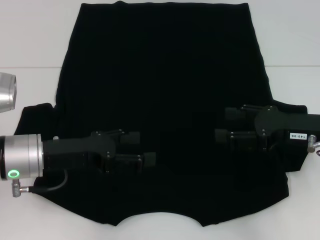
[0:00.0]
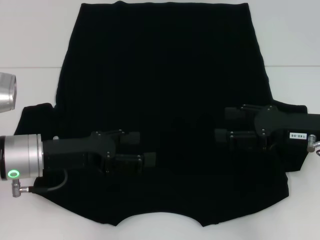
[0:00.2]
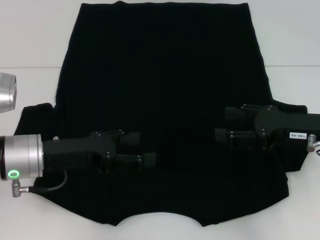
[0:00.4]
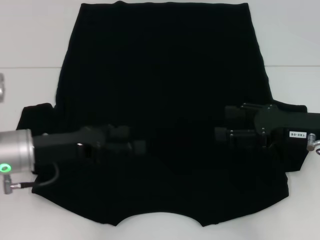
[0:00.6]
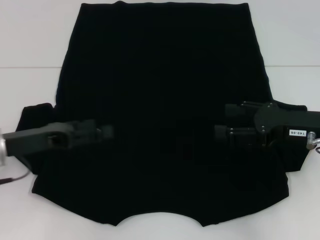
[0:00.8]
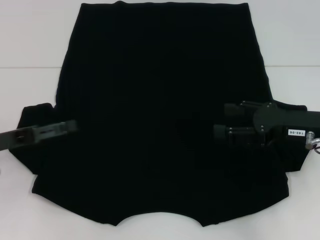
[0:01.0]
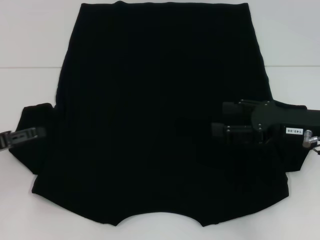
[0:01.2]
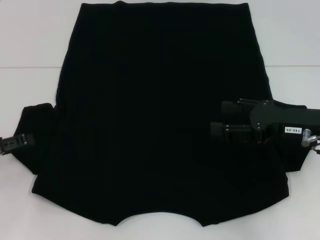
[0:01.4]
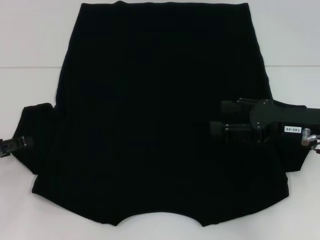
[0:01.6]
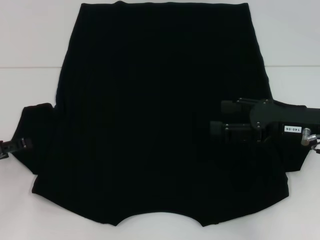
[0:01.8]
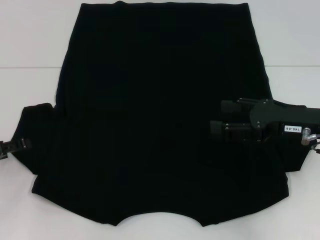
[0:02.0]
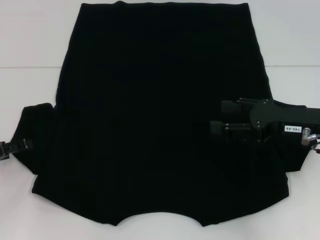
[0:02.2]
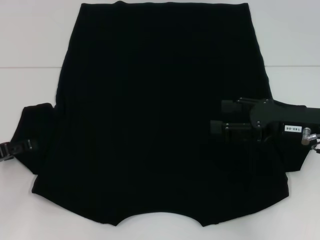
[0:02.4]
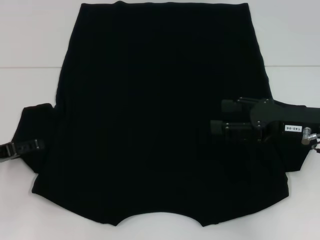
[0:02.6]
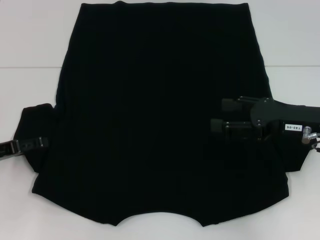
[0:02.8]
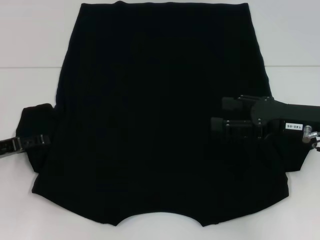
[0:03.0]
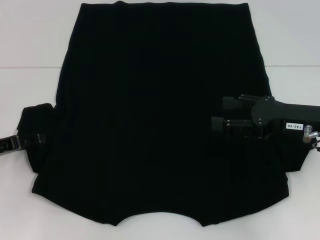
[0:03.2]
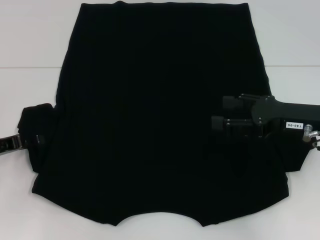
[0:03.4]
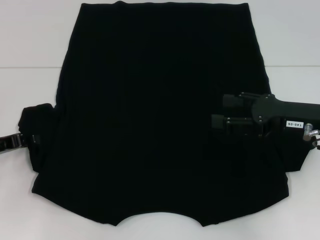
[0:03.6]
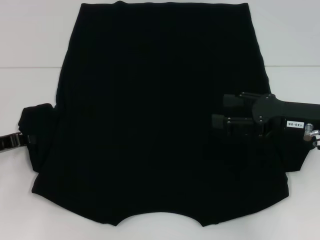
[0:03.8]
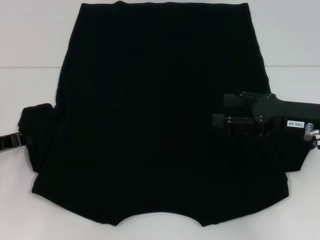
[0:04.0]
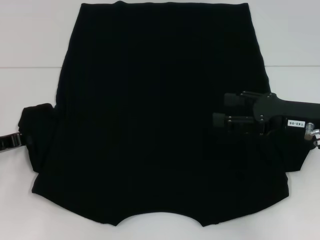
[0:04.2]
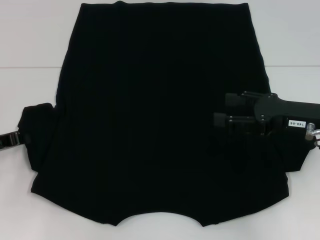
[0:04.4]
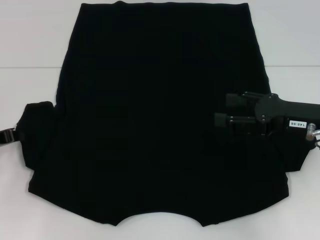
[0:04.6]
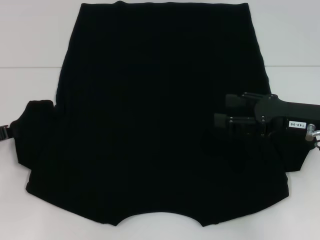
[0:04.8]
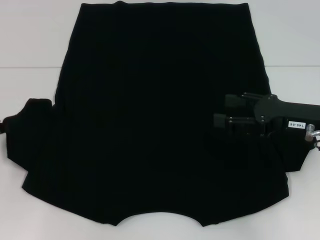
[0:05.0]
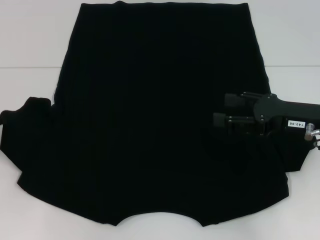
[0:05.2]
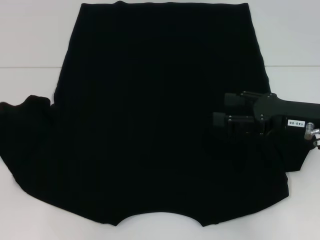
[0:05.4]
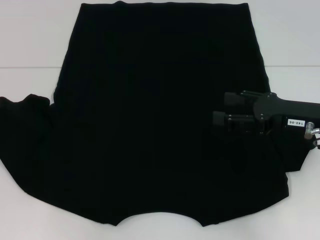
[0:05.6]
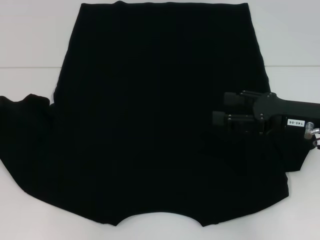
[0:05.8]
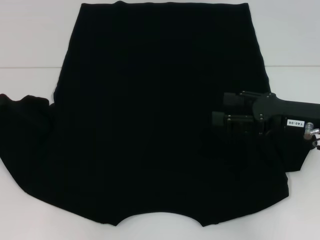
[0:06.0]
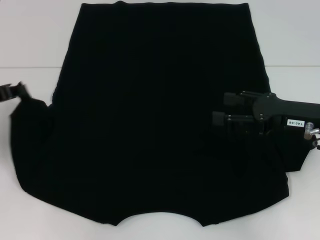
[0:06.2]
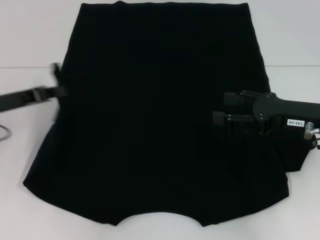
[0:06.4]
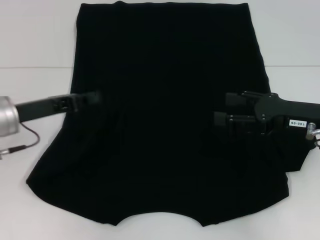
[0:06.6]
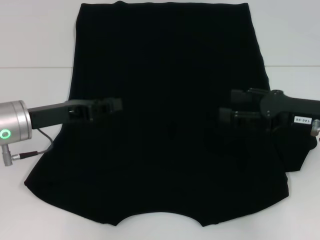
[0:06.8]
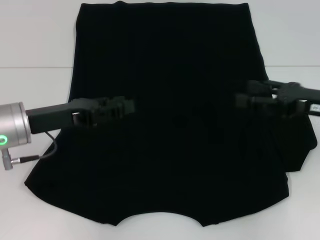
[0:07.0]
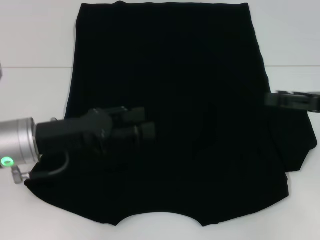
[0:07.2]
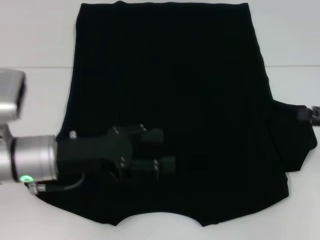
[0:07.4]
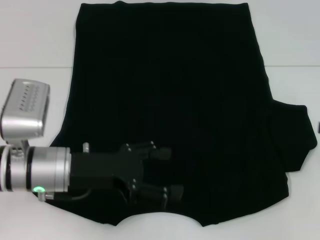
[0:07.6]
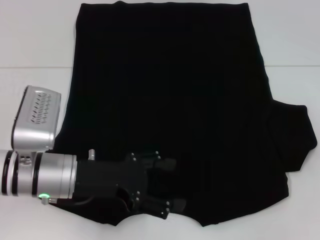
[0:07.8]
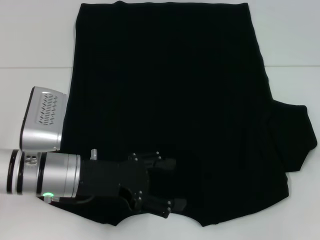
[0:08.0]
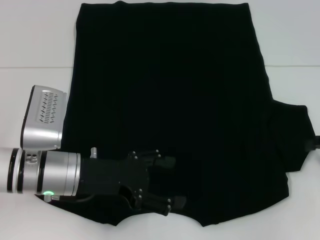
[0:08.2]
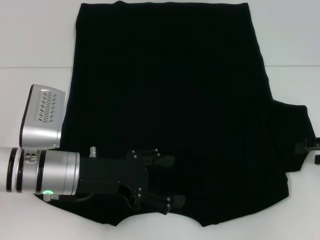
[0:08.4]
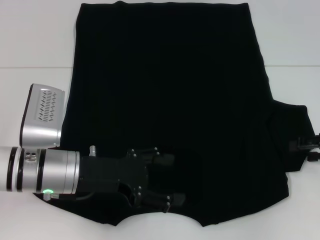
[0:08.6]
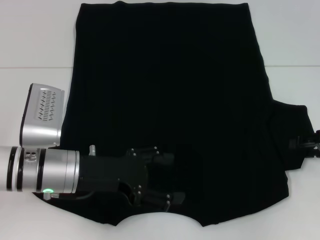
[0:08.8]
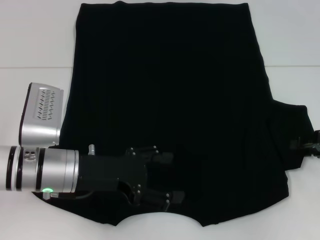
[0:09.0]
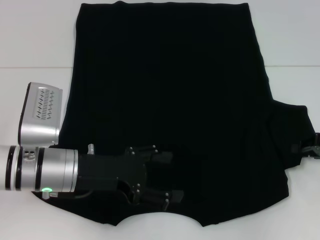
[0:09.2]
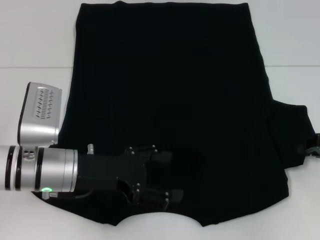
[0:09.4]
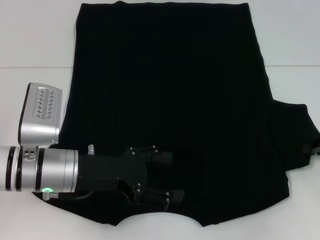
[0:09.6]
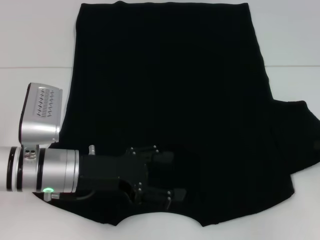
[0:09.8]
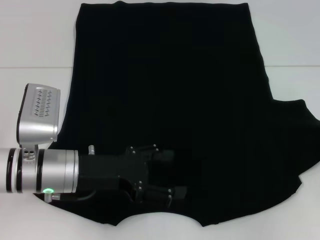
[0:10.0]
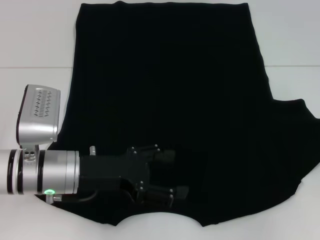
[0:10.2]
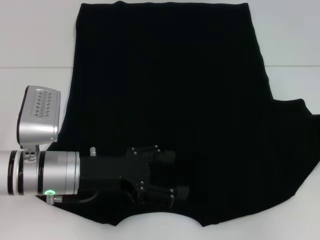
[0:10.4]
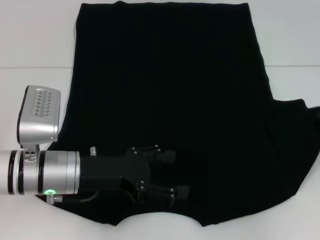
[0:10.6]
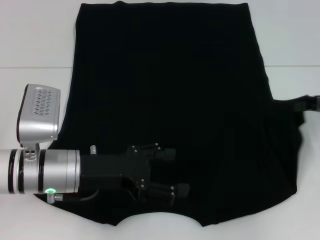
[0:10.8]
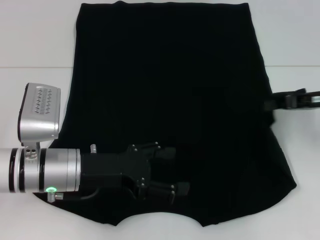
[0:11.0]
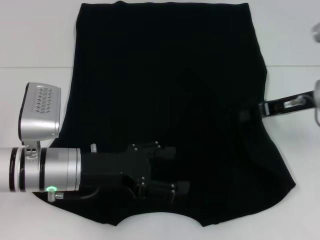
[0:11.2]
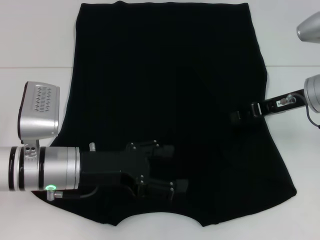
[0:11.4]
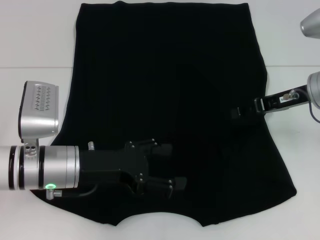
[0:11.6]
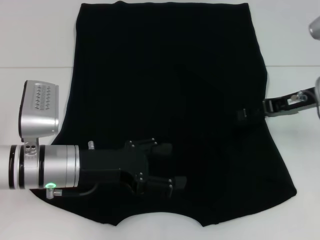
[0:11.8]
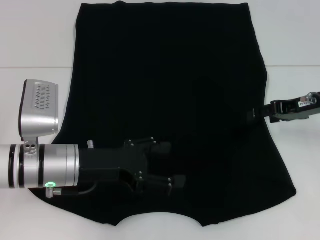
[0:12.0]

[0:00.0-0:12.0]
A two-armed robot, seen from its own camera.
Step, 0:00.0 to 0:06.8: Fold the bottom left sleeve with your left hand.
0:00.0 to 0:01.6: The left gripper shifts some 15 cm to the left.
0:01.6 to 0:03.0: The grippers move only a little.
0:03.0 to 0:04.4: The left gripper closes its fingers.
0:04.4 to 0:06.0: The left gripper moves roughly 5 cm.
0:06.0 to 0:07.6: Both grippers travel together to the right, approximately 15 cm. The left gripper opens.
0:07.6 to 0:09.0: The right gripper changes place by roughly 5 cm.
0:09.0 to 0:10.4: The right gripper closes.
0:10.4 to 0:12.0: The right gripper heads to the left, covering some 10 cm, and opens up.

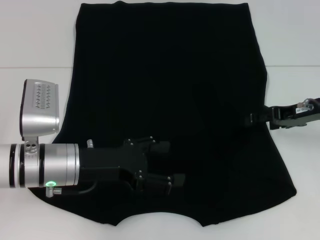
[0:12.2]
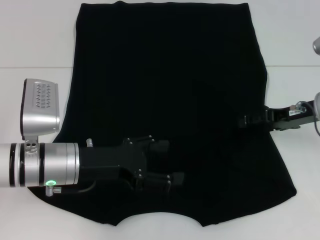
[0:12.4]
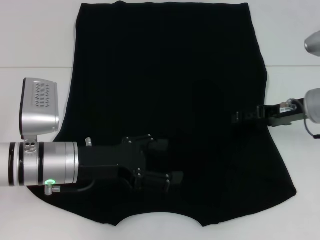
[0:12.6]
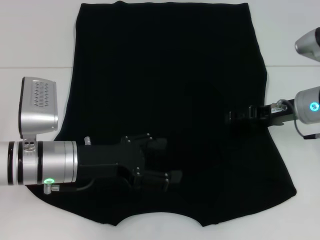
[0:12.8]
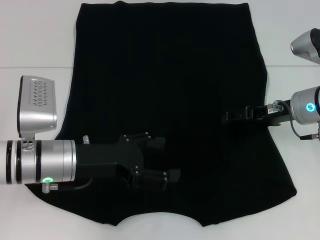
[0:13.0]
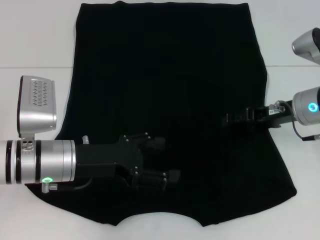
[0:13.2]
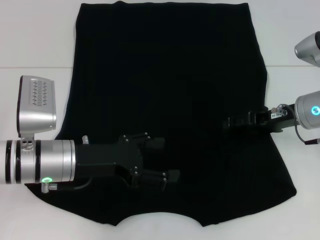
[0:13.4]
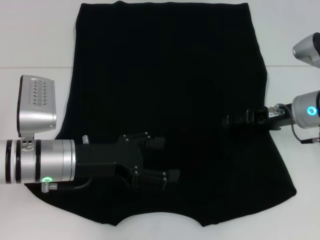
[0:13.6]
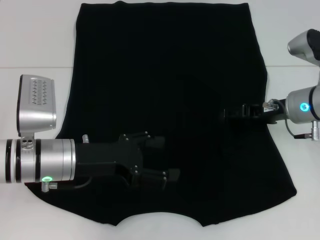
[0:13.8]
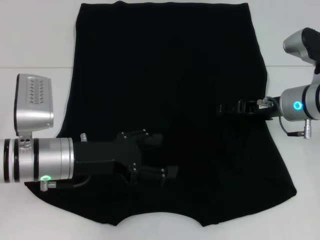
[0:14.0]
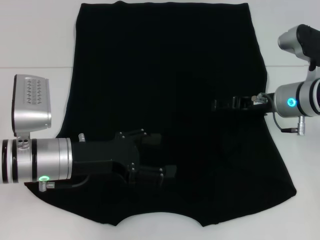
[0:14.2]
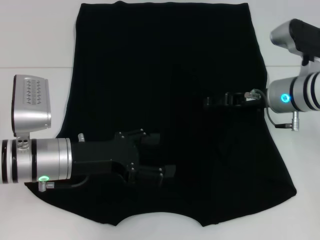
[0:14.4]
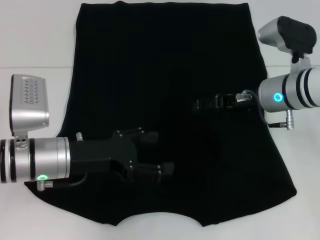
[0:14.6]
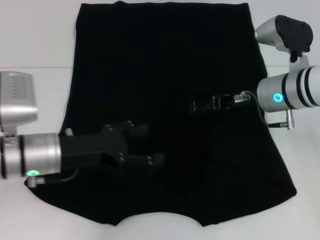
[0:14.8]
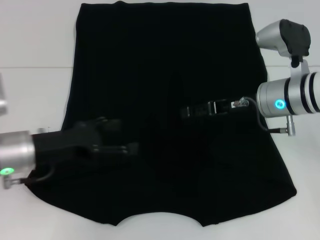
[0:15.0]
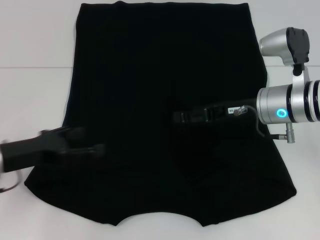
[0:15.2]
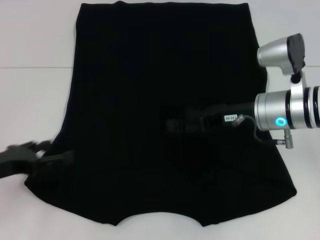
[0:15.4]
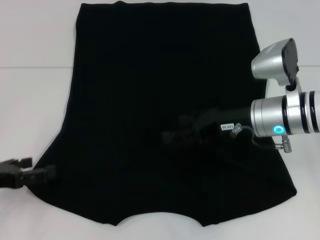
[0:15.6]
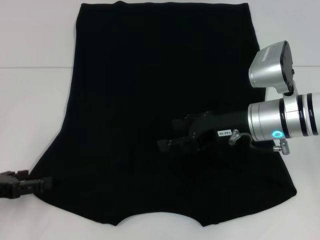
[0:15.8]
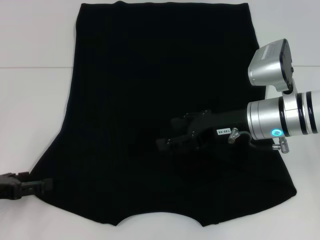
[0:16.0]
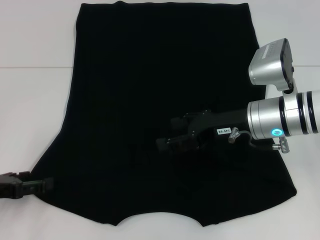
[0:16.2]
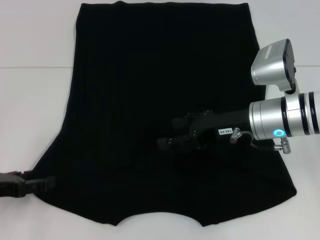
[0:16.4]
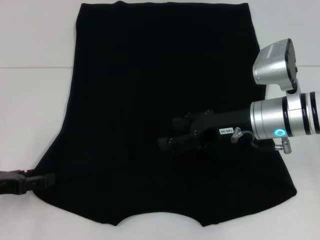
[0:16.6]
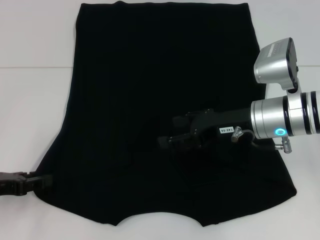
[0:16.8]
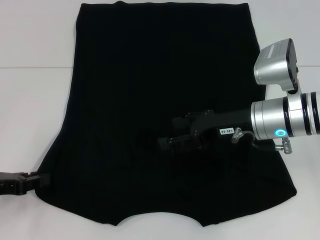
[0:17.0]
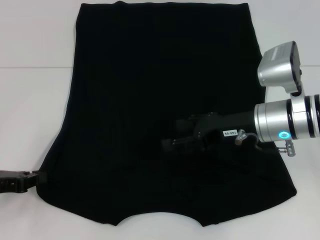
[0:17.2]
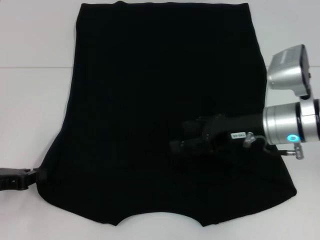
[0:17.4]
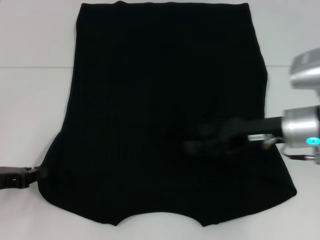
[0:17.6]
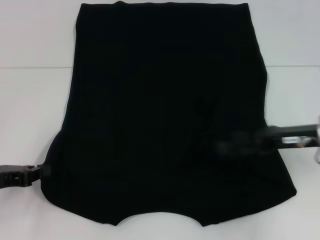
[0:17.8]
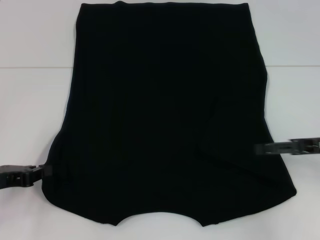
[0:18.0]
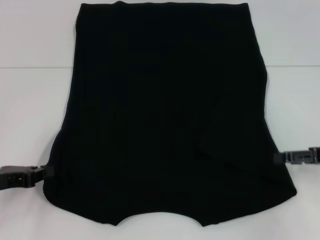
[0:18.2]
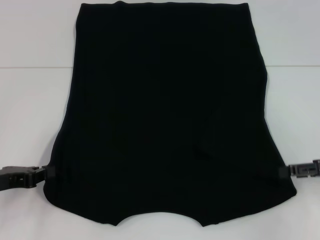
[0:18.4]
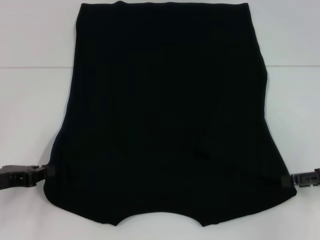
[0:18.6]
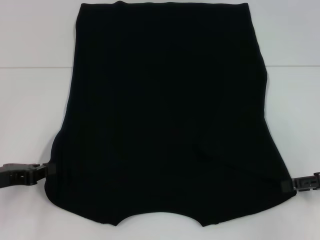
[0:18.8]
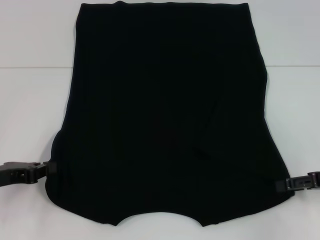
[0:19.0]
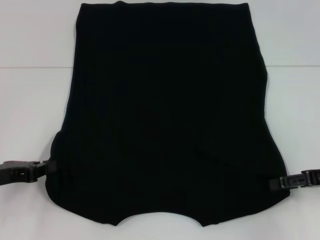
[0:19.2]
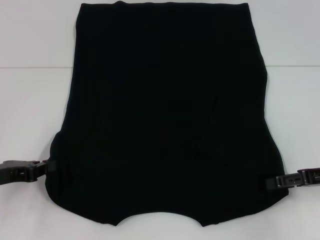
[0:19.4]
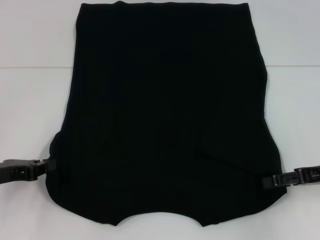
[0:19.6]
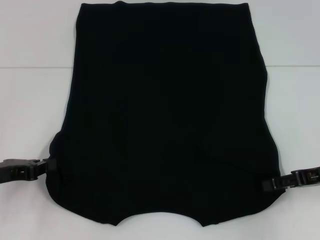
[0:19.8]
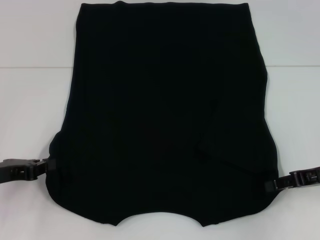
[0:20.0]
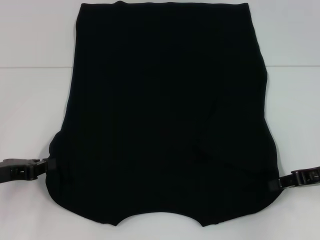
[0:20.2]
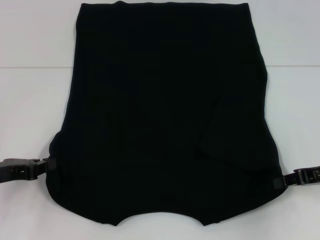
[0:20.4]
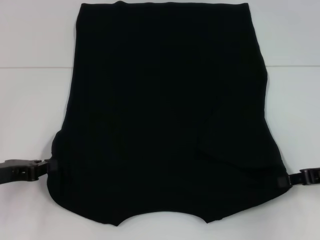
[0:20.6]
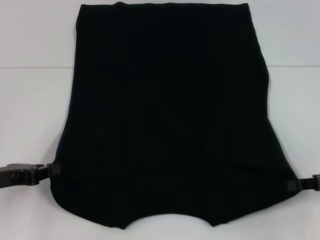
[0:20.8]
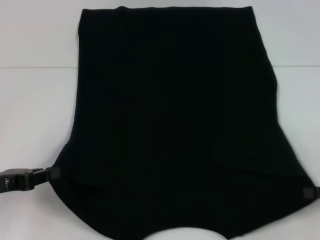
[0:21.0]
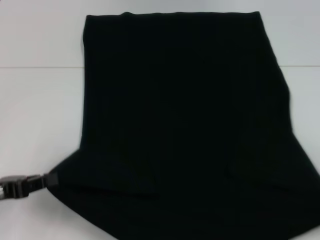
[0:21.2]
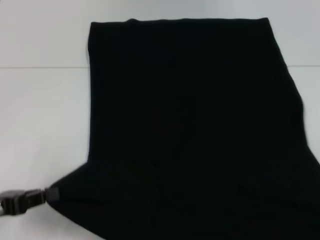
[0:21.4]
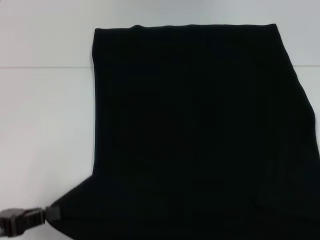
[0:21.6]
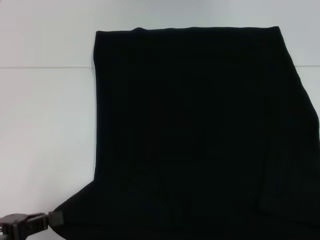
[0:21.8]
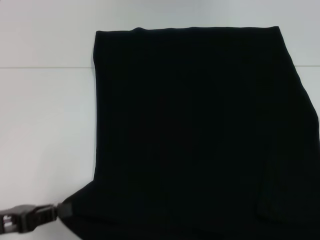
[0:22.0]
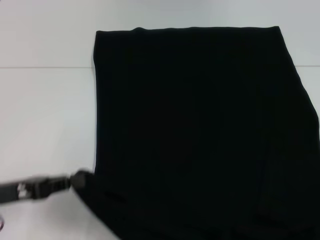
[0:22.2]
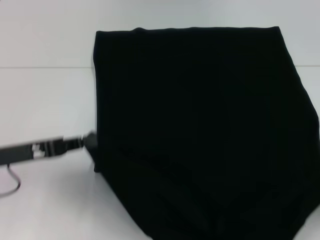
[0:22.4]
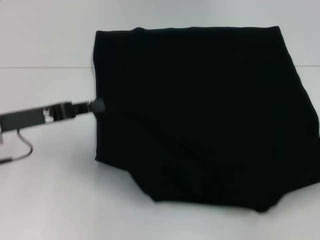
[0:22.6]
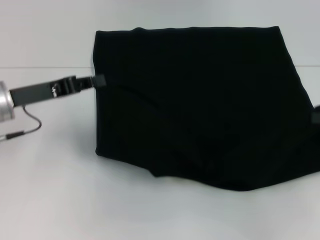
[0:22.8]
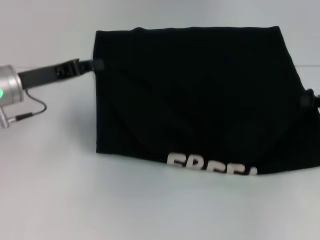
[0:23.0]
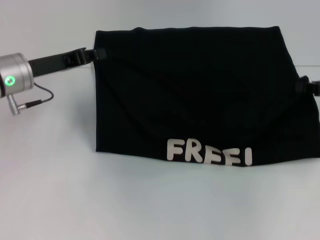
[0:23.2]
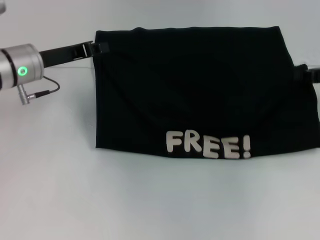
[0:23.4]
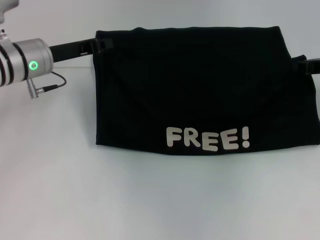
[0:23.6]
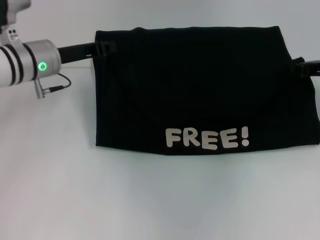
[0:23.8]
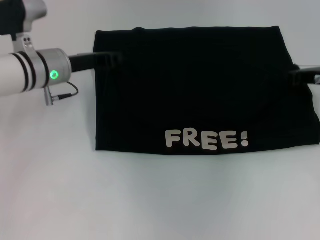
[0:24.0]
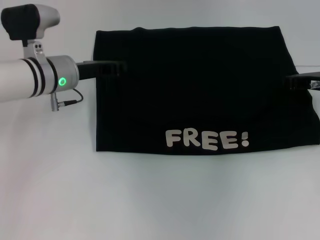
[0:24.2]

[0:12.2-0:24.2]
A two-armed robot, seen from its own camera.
Step, 0:12.2 to 0:14.6: Fold the bottom right sleeve with your right hand.
Step, 0:14.8 to 0:18.4: Grab the bottom left corner with your left hand.
Step, 0:18.6 to 0:20.2: Grab the bottom right corner with your right hand.
0:12.2 to 0:13.8: The right gripper shifts by some 5 cm.
0:13.8 to 0:15.2: The left gripper goes approximately 10 cm to the left. Meanwhile the right gripper shifts by roughly 5 cm.
0:15.2 to 0:16.6: The left gripper goes roughly 5 cm to the left.
0:16.6 to 0:18.2: The left gripper closes, while the right gripper moves to the right, some 20 cm.
0:18.2 to 0:19.8: The grippers move only a little.
0:19.8 to 0:21.2: The right gripper moves backward and to the right, about 10 cm, and closes.
0:21.2 to 0:22.6: The left gripper is displaced forward and to the right by some 10 cm. The right gripper moves approximately 5 cm.
0:22.6 to 0:24.2: The left gripper goes some 15 cm forward and to the right; the right gripper goes approximately 20 cm forward and to the left.
